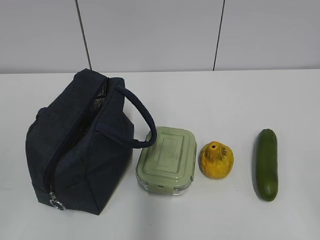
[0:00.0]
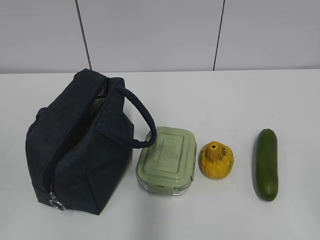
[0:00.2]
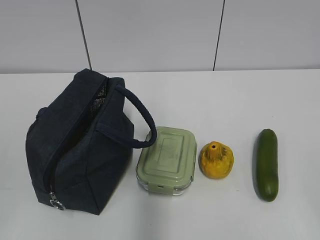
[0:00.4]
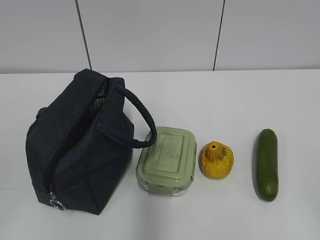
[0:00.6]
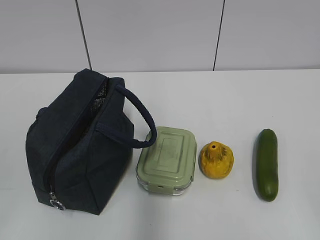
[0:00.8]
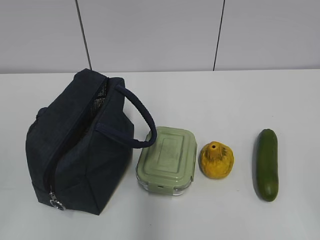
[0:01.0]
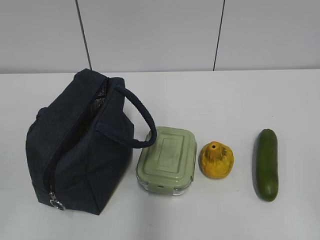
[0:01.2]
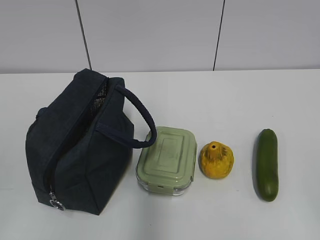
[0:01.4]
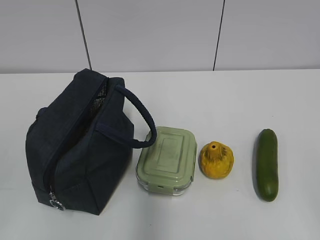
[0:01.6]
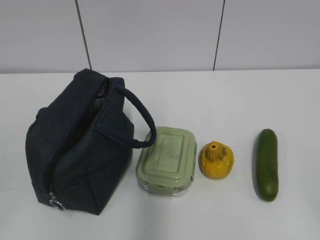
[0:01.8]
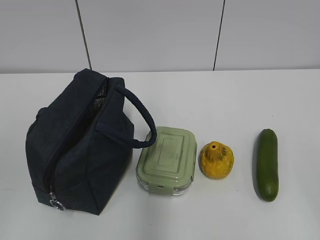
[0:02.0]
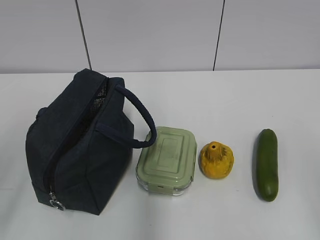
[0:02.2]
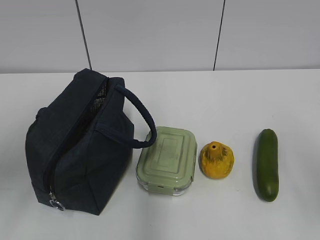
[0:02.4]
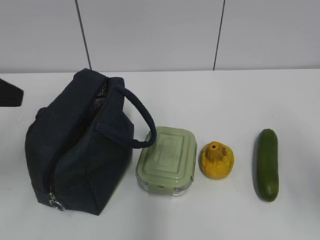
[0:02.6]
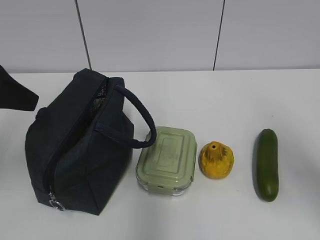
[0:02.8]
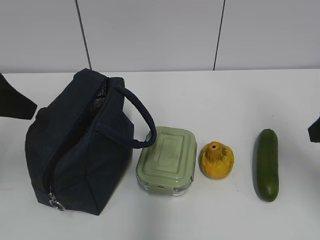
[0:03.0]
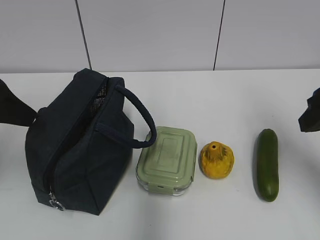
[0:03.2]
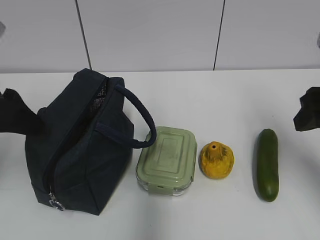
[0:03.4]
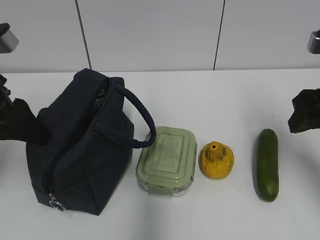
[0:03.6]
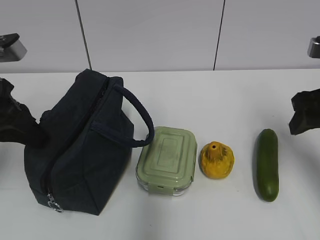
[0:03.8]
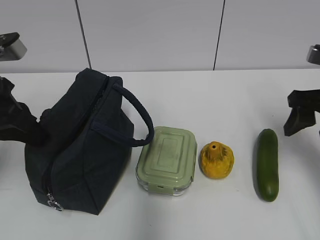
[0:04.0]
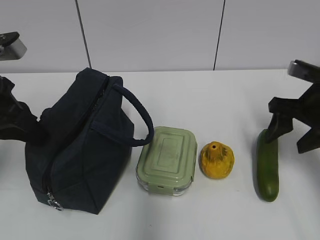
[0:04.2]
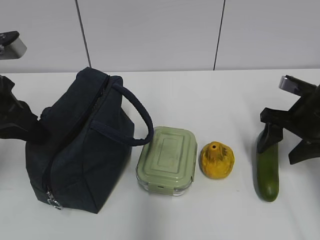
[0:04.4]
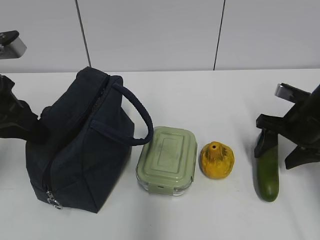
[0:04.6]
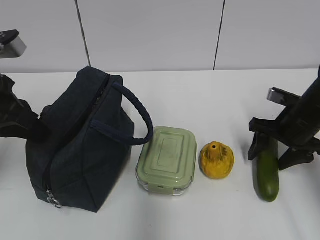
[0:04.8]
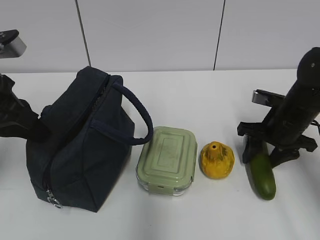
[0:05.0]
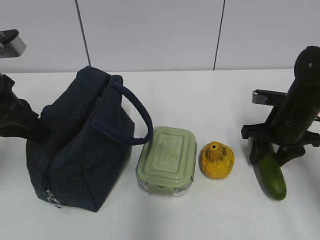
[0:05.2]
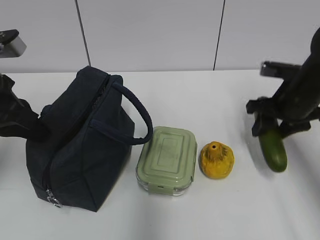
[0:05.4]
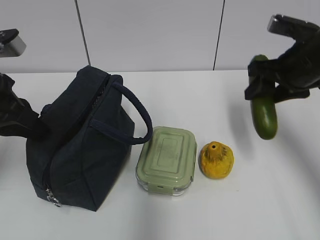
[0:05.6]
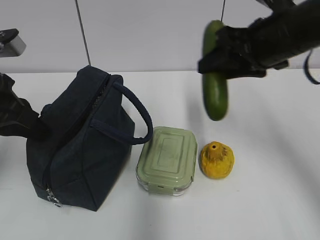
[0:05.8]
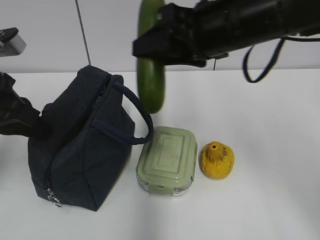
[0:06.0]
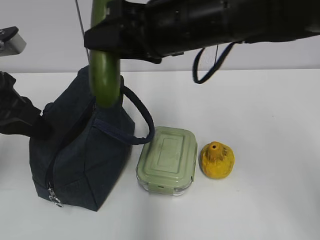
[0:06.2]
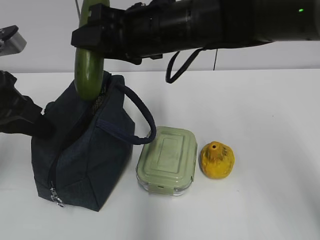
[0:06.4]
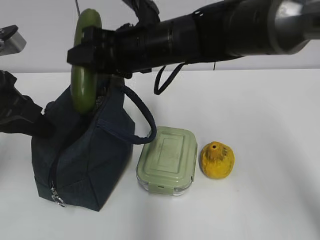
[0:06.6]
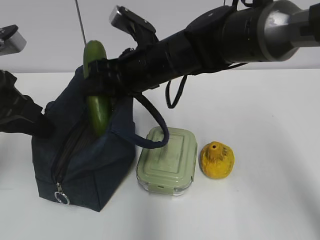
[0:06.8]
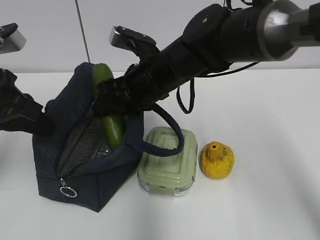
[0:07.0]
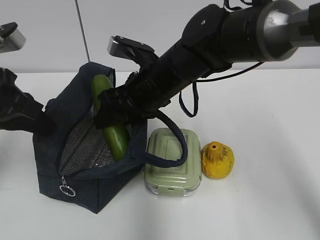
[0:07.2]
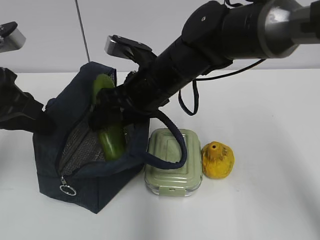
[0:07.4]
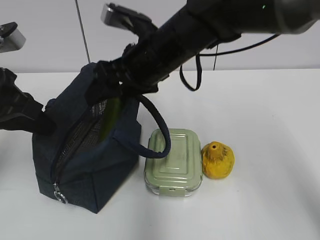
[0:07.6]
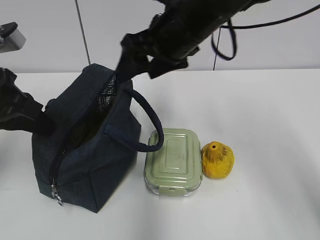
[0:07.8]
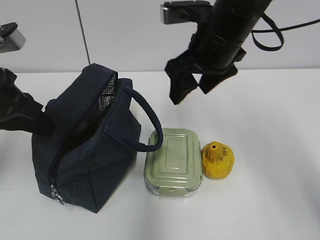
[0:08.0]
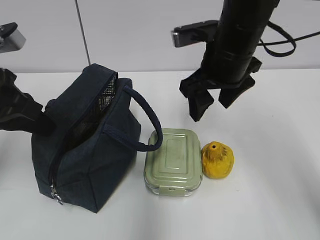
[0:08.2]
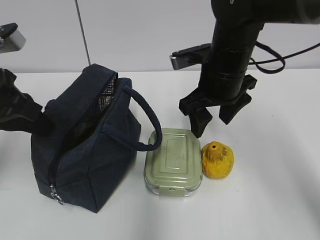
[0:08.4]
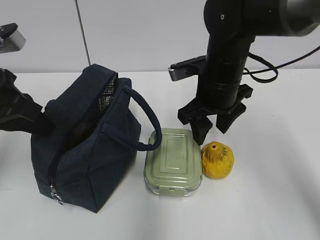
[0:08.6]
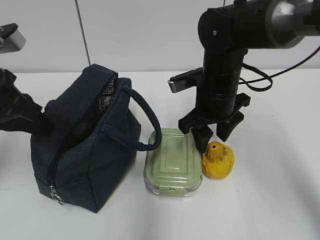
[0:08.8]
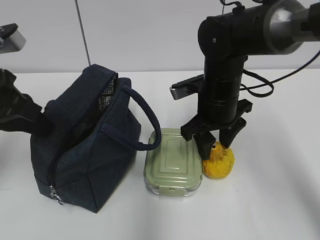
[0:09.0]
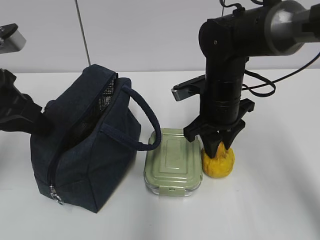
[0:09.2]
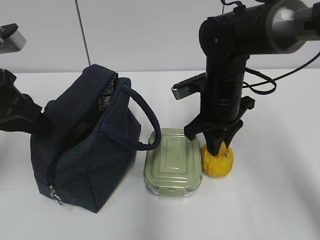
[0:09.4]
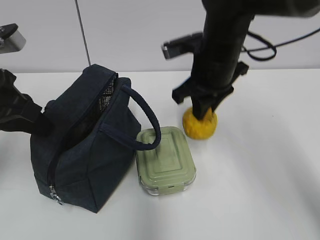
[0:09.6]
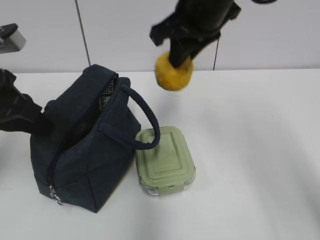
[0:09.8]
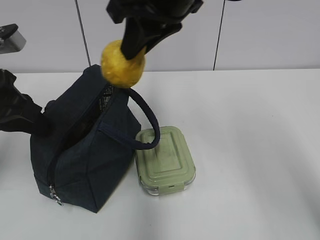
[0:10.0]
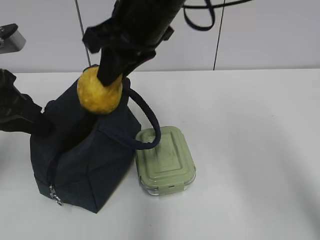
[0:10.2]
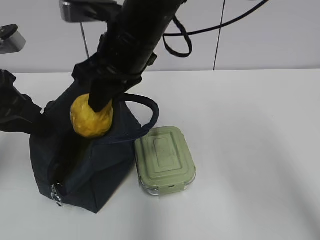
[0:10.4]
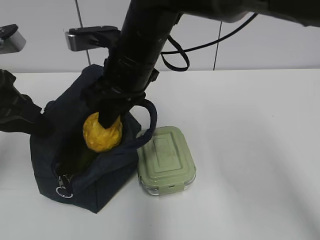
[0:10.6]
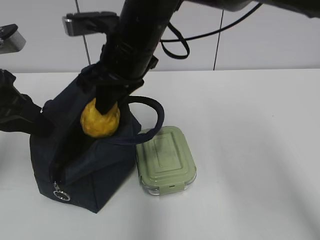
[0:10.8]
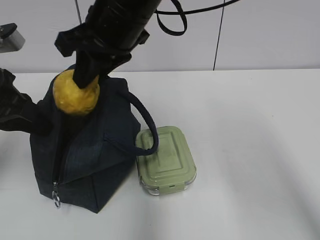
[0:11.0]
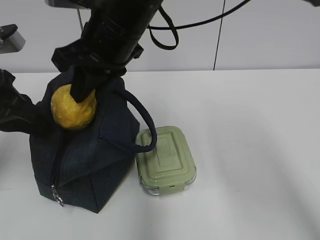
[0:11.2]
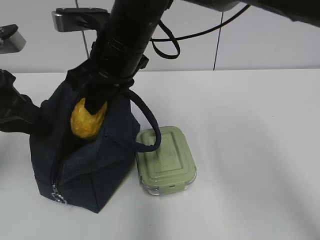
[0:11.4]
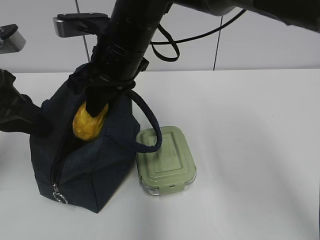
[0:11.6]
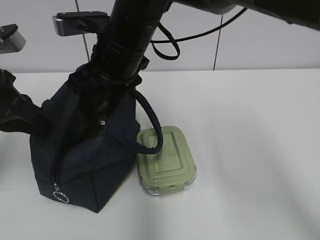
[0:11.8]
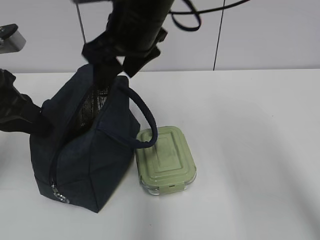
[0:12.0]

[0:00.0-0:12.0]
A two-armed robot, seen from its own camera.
Step, 0:00.0 to 0:05.2: Grab the cucumber with your right hand.
Step, 0:07.0 to 0:07.6: Place it into the bag with your right hand.
Step, 0:07.8 to 0:09.2: Grab the pear with your right hand.
Step, 0:09.4 to 0:11.6: Place it into the bag with your right hand.
0:01.6 to 0:03.0: Both grippers travel together forward, approximately 25 cm.
0:03.0 to 0:04.4: The left gripper shifts by approximately 5 cm, and closes. The right gripper shifts roughly 15 cm forward and downward.
0:04.4 to 0:06.0: The right gripper shifts approximately 25 cm to the left and upward.
0:06.0 to 0:07.6: The right gripper moves to the left, approximately 5 cm.
0:07.6 to 0:09.0: The right gripper heads downward and to the right, covering roughly 15 cm.
0:09.0 to 0:10.4: The right gripper is displaced to the left and upward by approximately 15 cm, and closes.
0:10.4 to 0:12.0: The right gripper moves up and down over roughly 5 cm, changing direction 2 times, and opens its fingers.

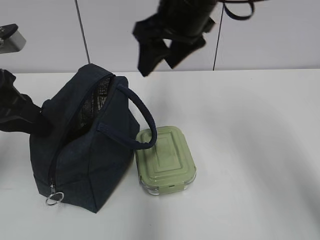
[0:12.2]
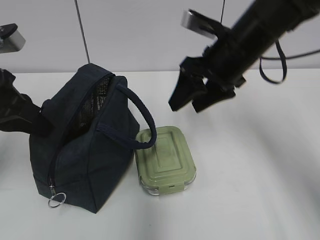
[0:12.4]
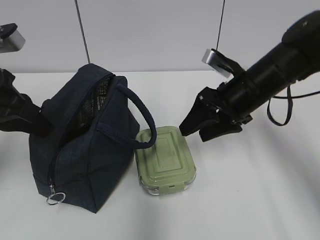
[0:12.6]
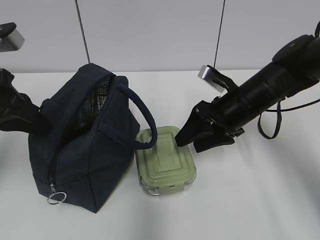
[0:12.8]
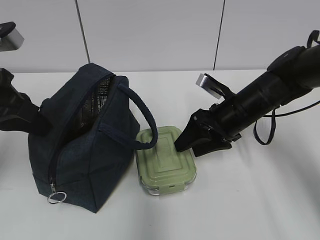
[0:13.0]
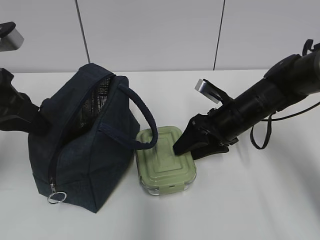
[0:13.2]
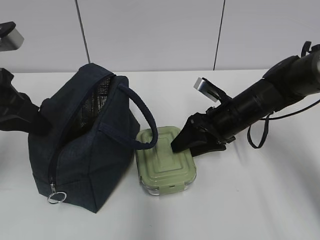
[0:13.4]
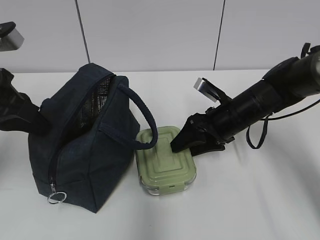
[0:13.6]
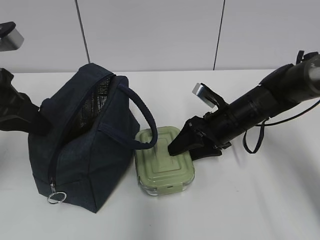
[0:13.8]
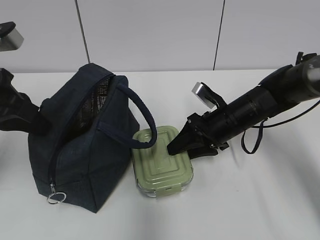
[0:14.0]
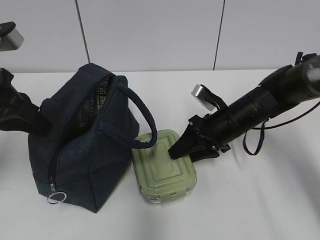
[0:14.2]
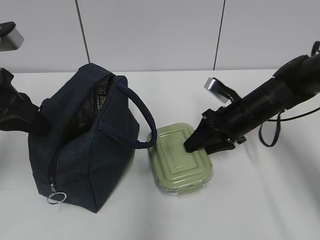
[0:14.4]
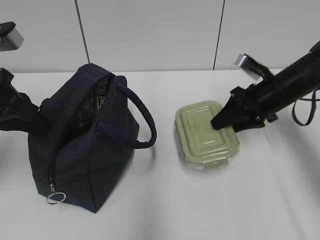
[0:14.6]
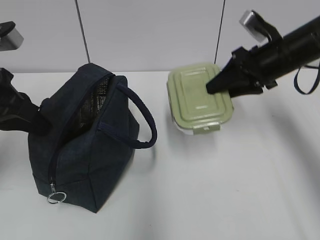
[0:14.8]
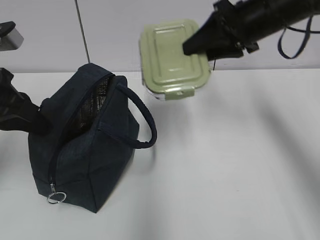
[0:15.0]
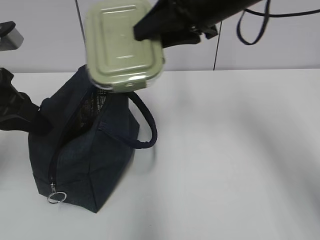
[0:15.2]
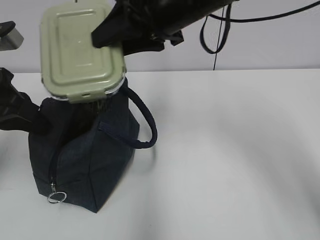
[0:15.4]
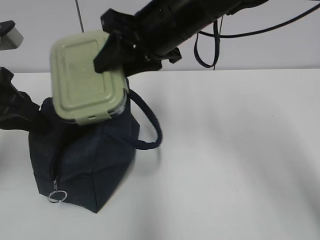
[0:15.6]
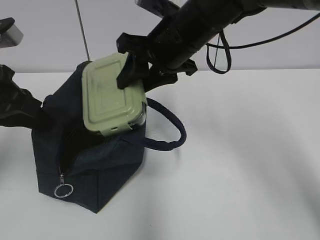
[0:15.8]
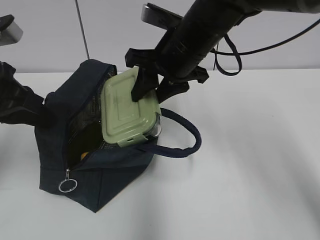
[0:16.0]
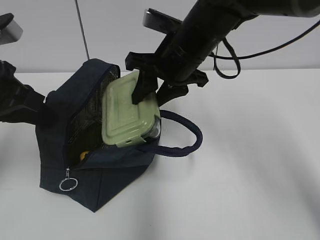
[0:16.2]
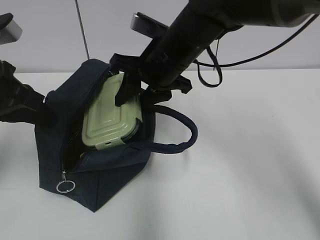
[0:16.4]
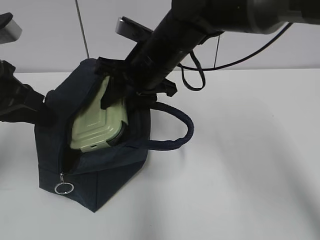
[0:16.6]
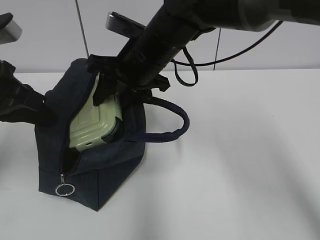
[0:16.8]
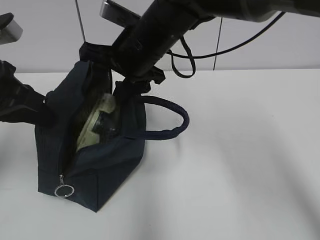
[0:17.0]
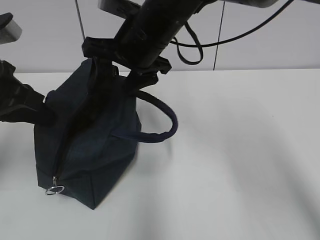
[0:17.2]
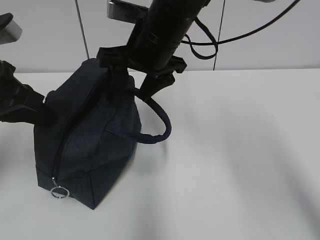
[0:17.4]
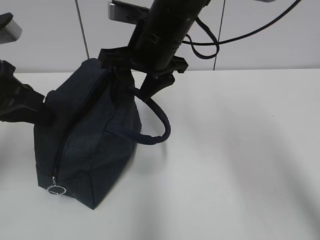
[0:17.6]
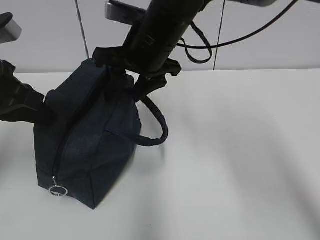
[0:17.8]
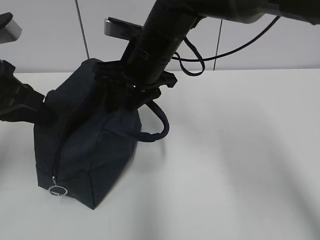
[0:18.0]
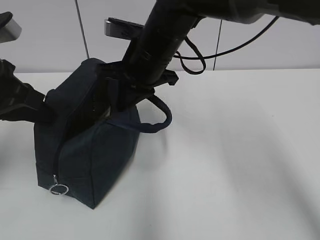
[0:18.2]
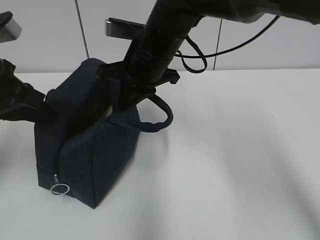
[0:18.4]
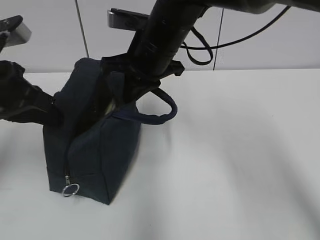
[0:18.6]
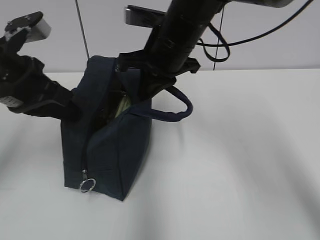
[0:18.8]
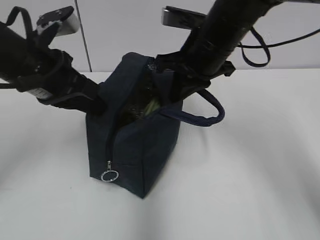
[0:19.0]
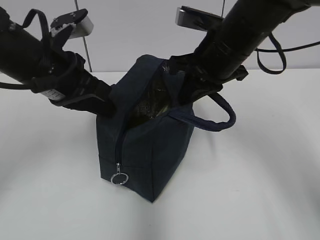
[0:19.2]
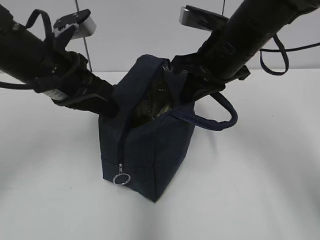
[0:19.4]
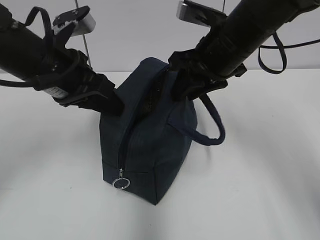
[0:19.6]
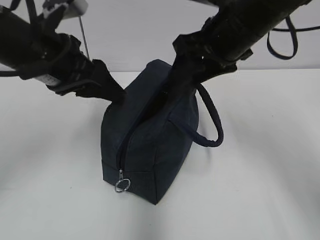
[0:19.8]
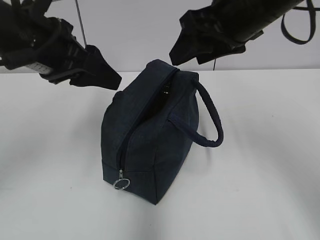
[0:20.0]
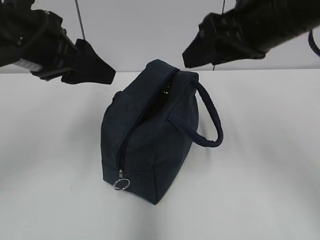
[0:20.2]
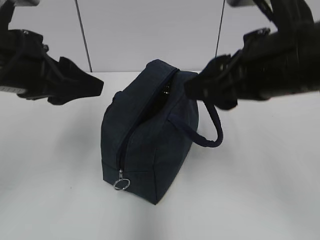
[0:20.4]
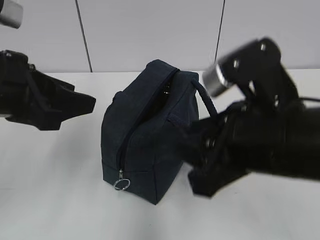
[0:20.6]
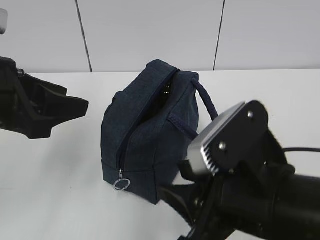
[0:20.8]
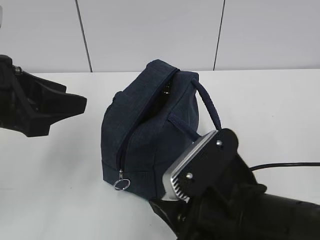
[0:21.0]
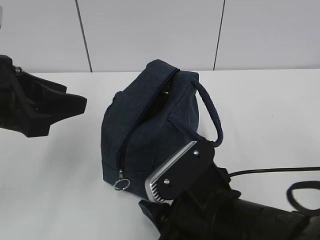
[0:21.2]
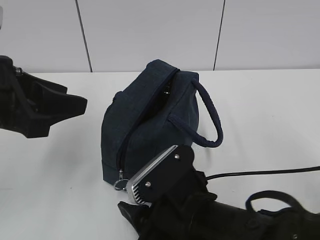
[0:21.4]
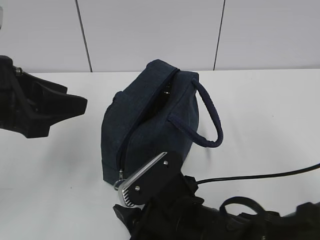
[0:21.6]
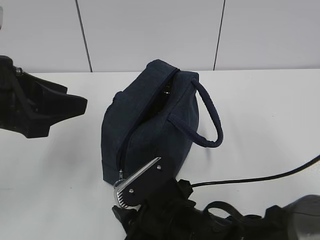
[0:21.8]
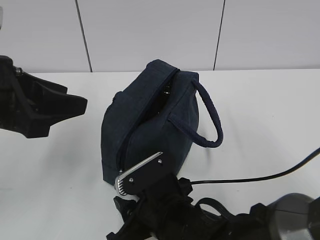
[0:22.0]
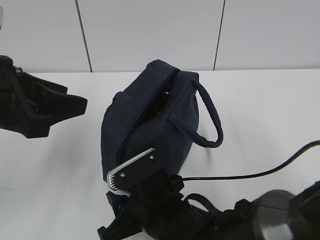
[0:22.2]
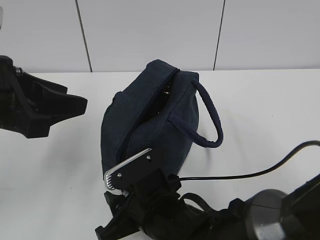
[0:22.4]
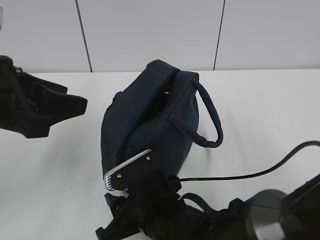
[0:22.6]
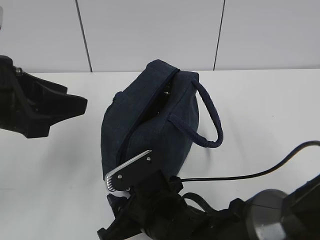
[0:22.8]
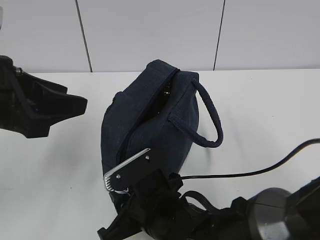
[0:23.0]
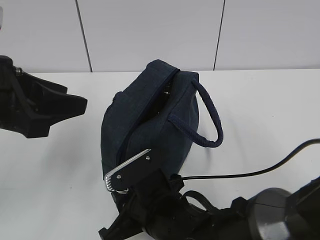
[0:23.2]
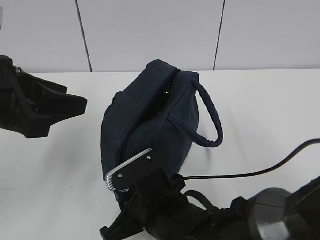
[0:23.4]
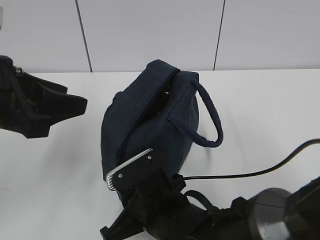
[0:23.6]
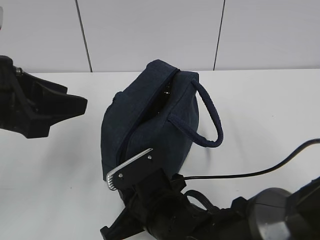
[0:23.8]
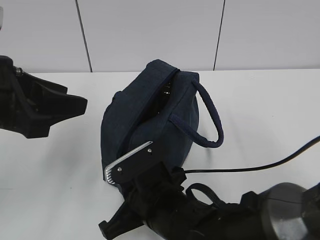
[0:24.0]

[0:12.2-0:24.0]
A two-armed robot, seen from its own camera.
Step, 0:12.2 to 0:14.0: Grab the lunch box with your right hand.
Step, 0:17.4 to 0:18.2: Grab the lunch bag with your right hand.
Step, 0:18.4 to 0:19.6: Move the lunch bag to the right.
0:12.2 to 0:13.6: The right gripper travels downward by some 20 cm.
0:13.6 to 0:15.2: The right gripper travels upward by some 20 cm.
0:15.2 to 0:16.6: The right gripper shifts approximately 10 cm downward and to the left.
0:16.6 to 0:18.2: The right gripper closes.
0:18.2 to 0:19.6: Both grippers move to the right, roughly 10 cm. The left gripper opens its fingers.
0:19.6 to 0:21.0: The left gripper is displaced backward by roughly 10 cm, while the right gripper shifts about 25 cm backward and downward.
0:21.0 to 0:22.6: The right gripper goes roughly 10 cm downward, to the left and forward.
0:22.6 to 0:24.0: The right gripper closes its fingers.
